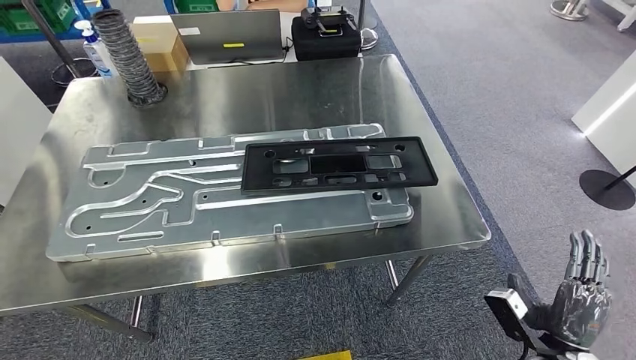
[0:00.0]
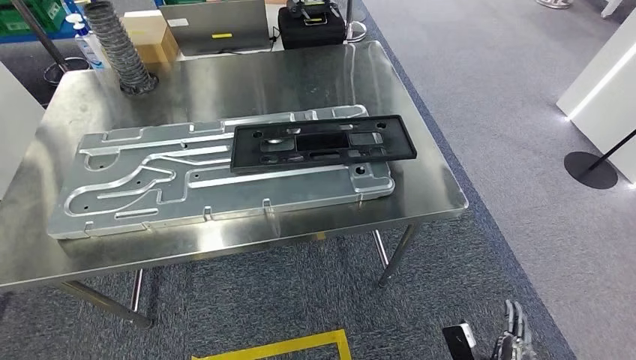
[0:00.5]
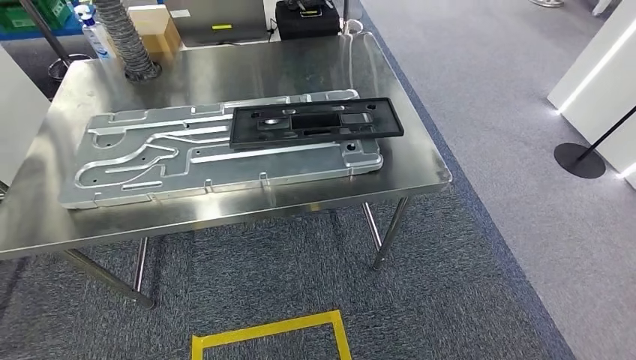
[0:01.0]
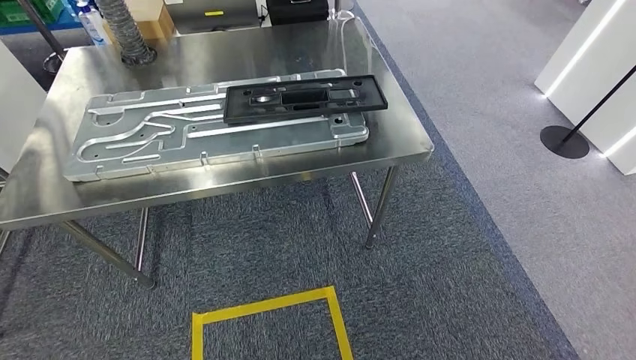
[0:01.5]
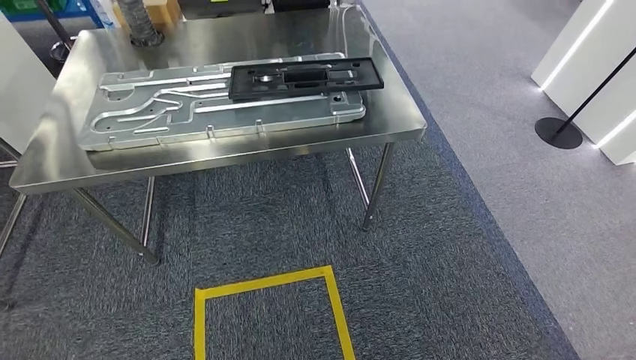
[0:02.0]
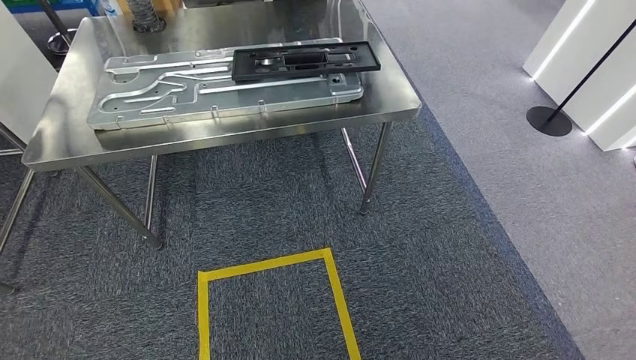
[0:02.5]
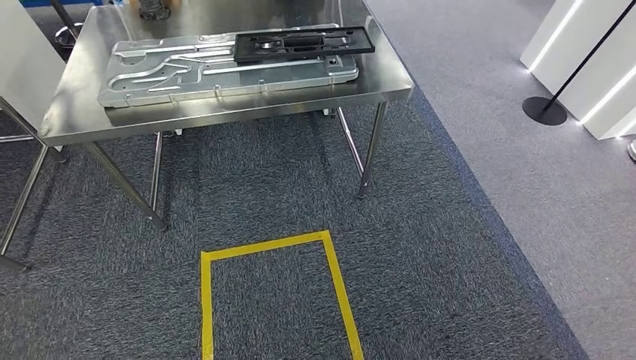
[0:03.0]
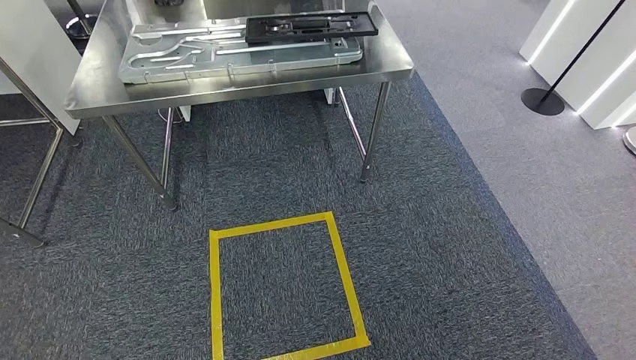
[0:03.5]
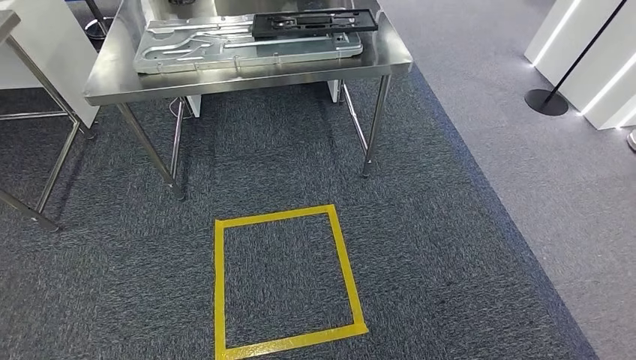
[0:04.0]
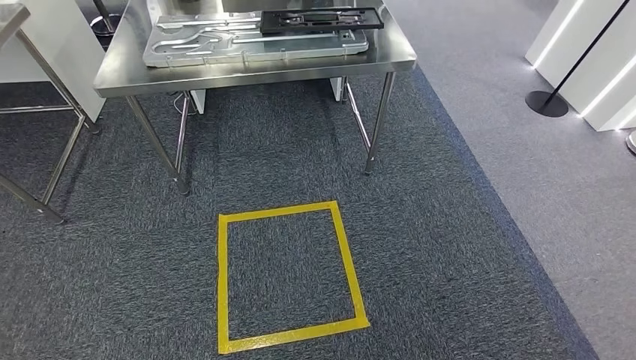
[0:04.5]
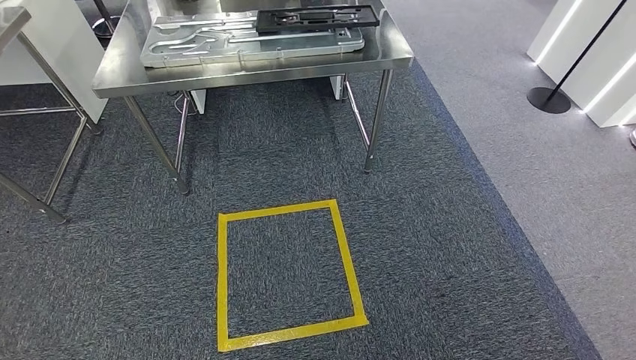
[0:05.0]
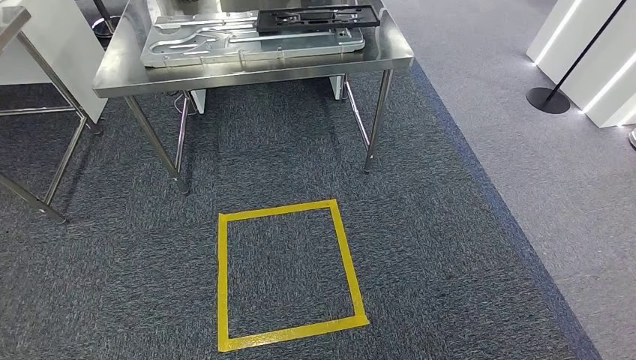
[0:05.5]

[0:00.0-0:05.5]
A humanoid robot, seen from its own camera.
Step, 0:02.5 to 0:05.5: Return to the initial position at the shelf.
